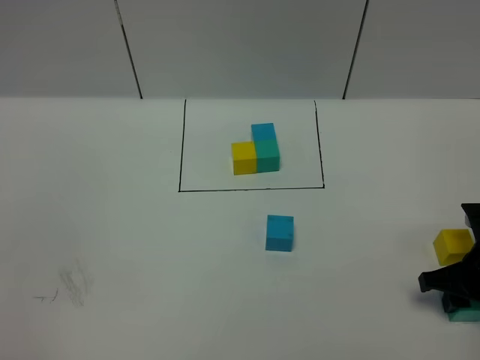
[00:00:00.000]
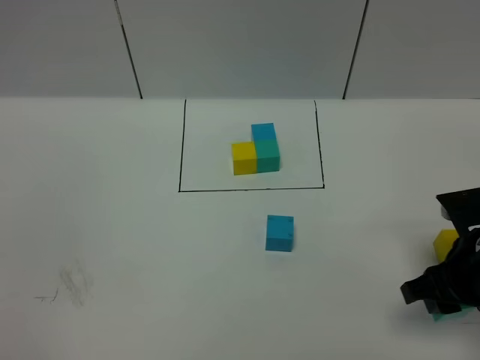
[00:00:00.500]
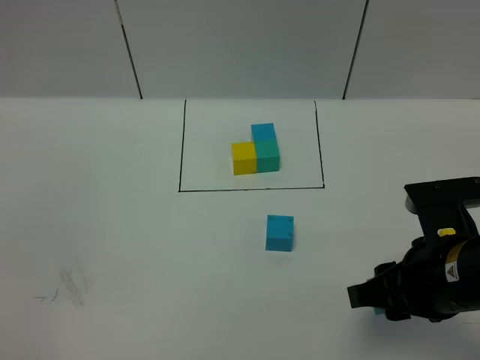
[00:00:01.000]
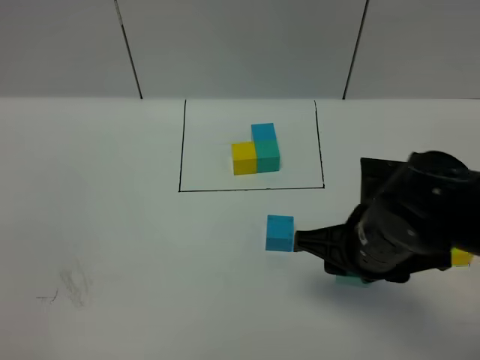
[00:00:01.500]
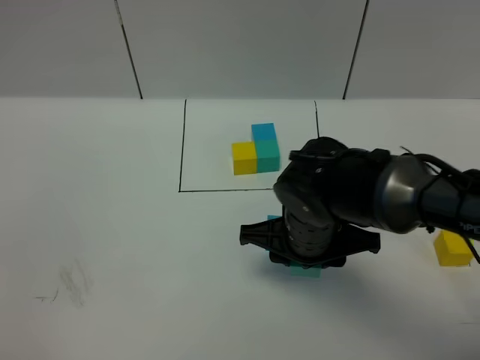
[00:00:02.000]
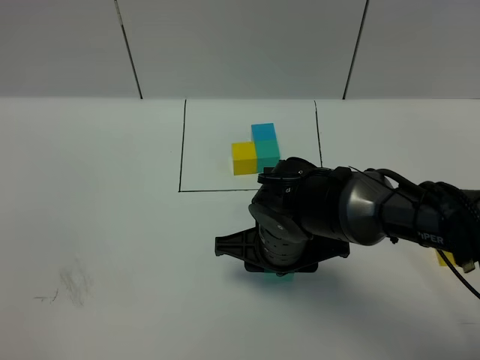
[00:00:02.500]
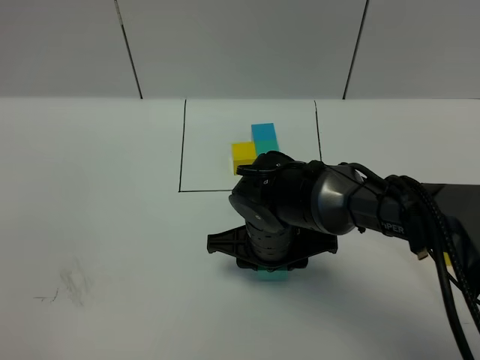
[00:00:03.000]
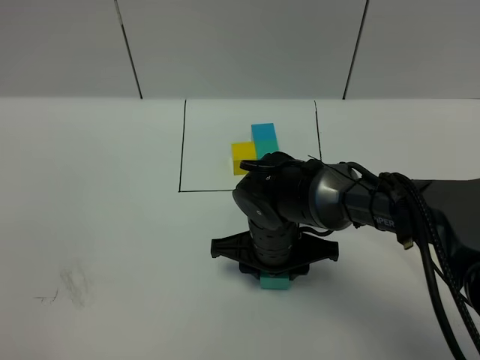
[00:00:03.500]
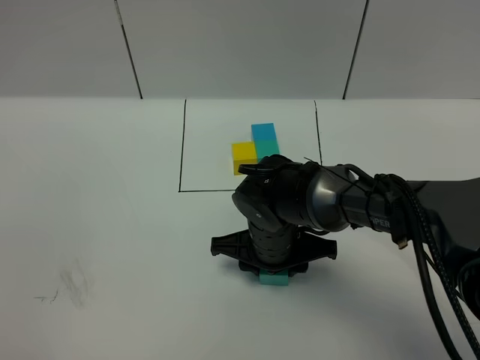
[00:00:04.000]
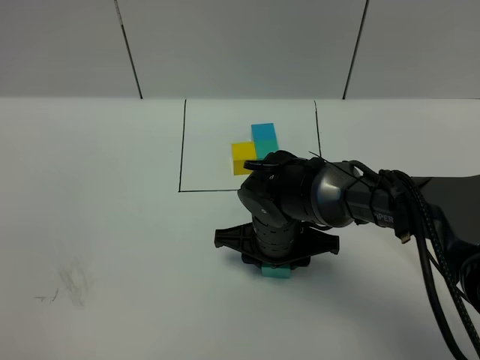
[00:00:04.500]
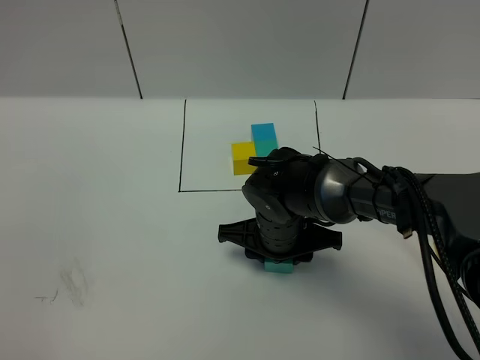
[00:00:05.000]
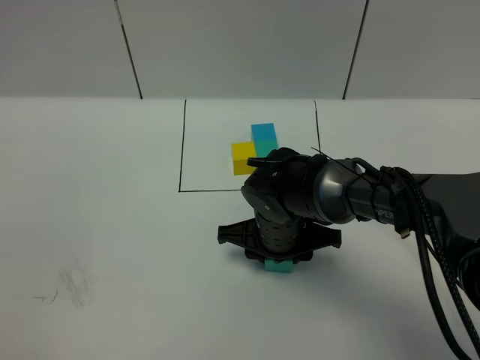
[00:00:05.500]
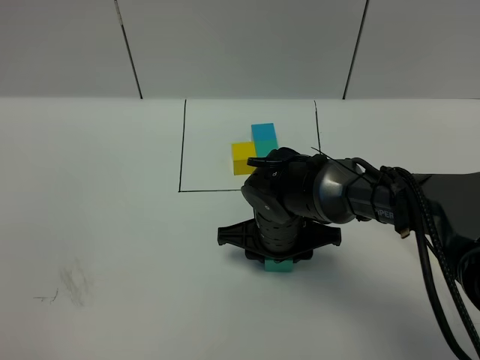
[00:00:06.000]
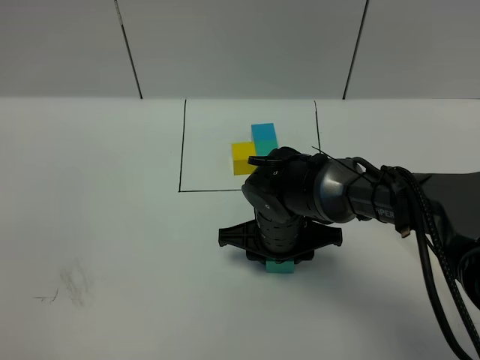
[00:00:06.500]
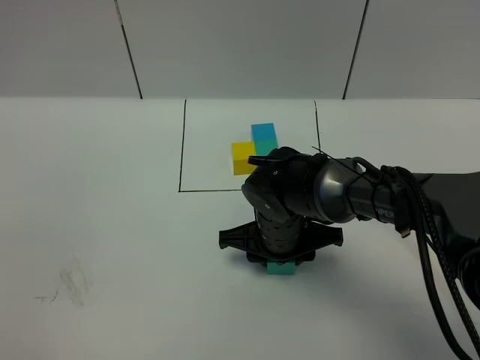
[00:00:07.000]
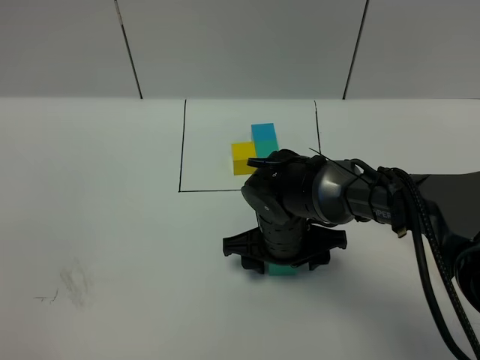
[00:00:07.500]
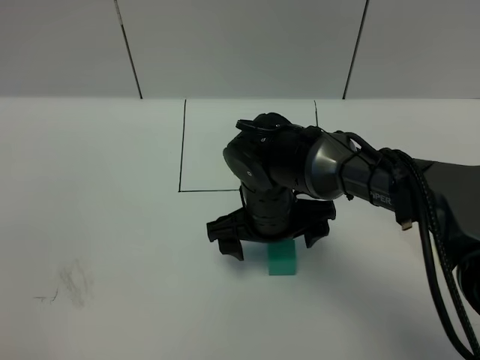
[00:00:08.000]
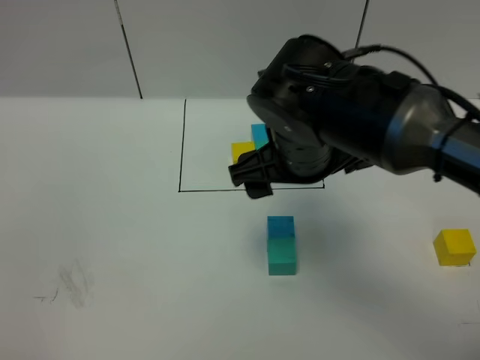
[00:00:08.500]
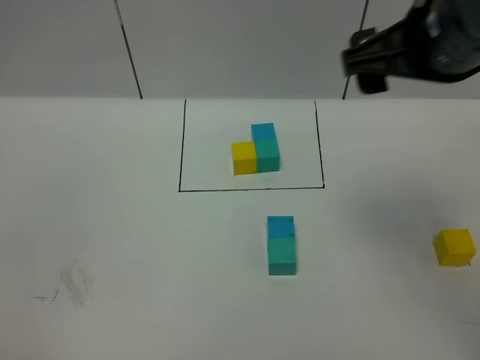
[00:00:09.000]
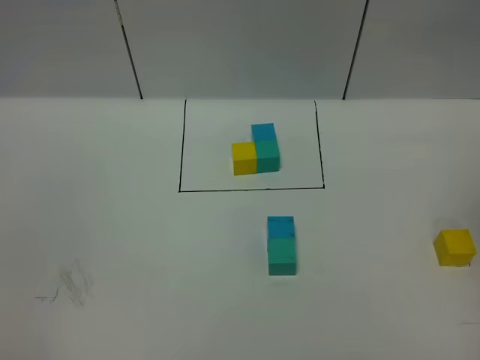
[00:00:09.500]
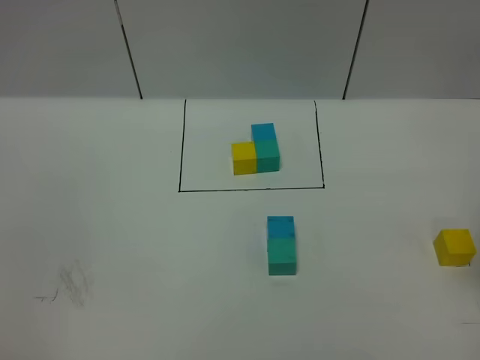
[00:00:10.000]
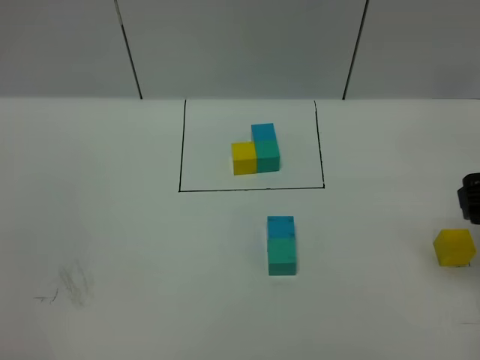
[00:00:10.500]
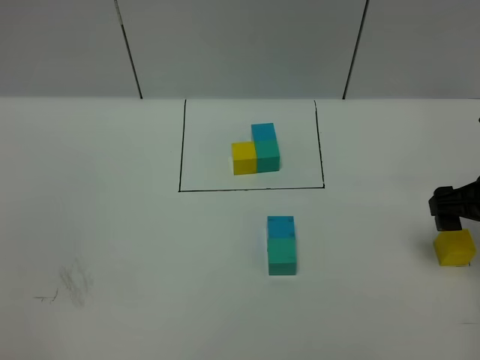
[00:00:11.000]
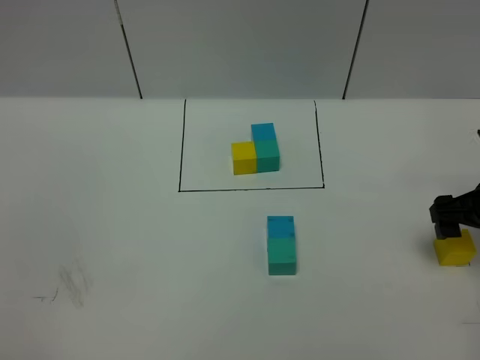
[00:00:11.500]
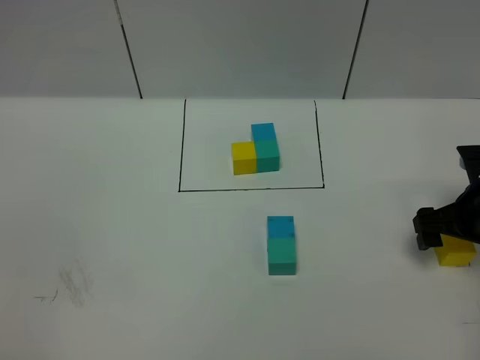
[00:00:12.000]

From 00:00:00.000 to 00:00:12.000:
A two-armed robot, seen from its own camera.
Task of the whole recording: According to the building block template in front, assemble the scattered blocks together.
Step, from 00:00:00.000 to 00:00:08.000: Put the green cube in the front of the blue cube.
From 00:00:00.000 to 00:00:02.000: The right gripper travels to the left by about 25 cm.
From 00:00:02.000 to 00:00:04.000: The right gripper heads downward, covering about 5 cm.
From 00:00:04.000 to 00:00:06.000: The grippers stay close to where they were, moving slightly.
From 00:00:06.000 to 00:00:08.000: The right gripper opens up.
From 00:00:08.000 to 00:00:10.000: The right gripper moves to the right and upward, roughly 35 cm.
From 00:00:10.000 to 00:00:12.000: The right gripper shifts about 20 cm downward and forward.

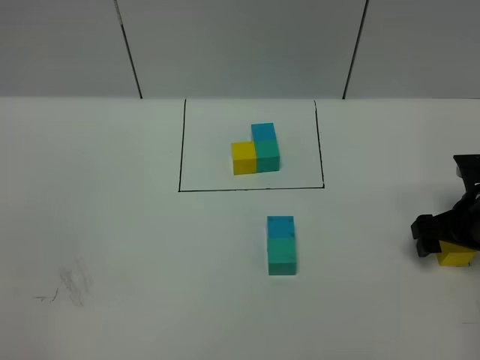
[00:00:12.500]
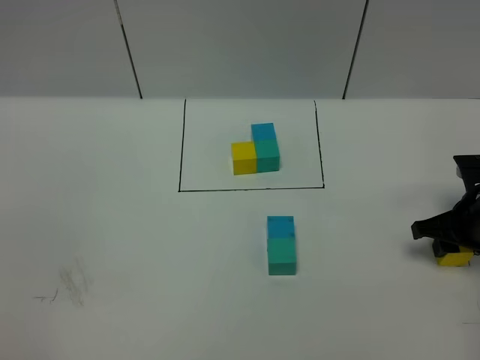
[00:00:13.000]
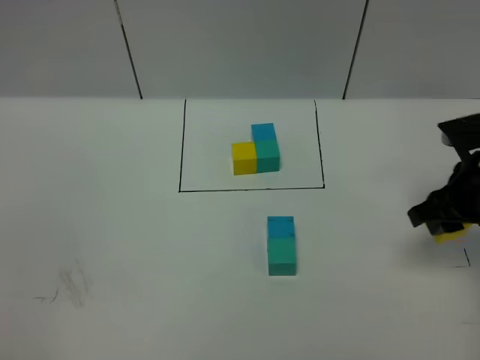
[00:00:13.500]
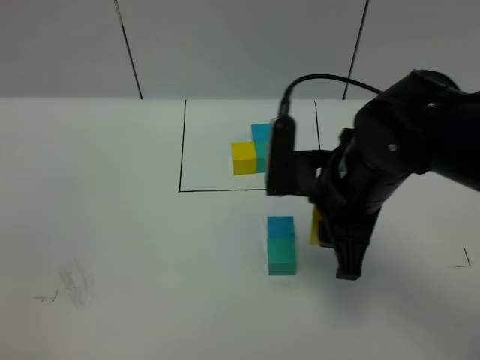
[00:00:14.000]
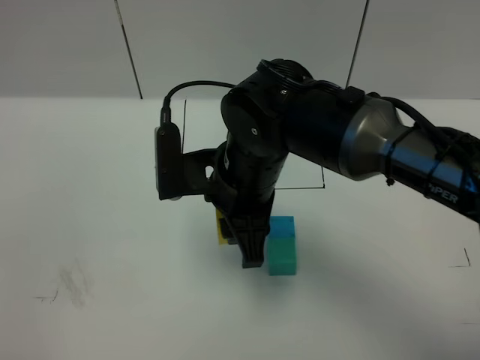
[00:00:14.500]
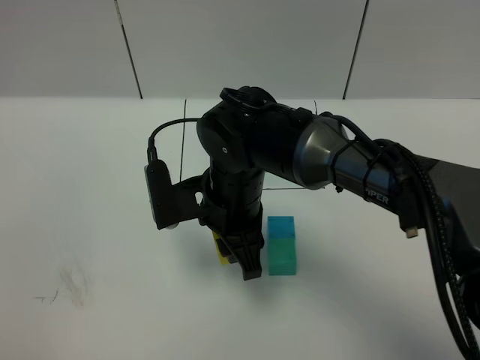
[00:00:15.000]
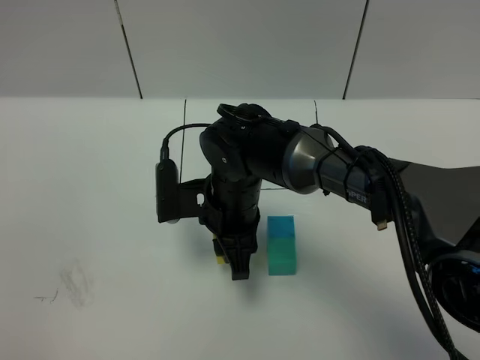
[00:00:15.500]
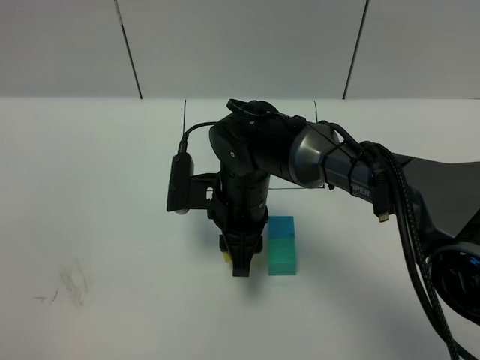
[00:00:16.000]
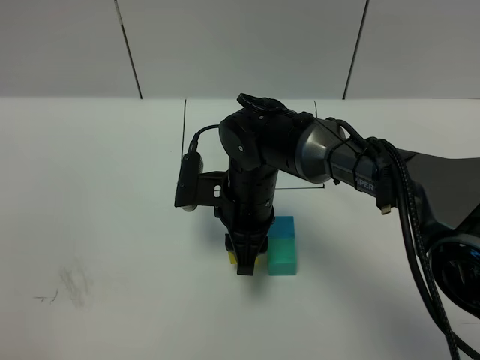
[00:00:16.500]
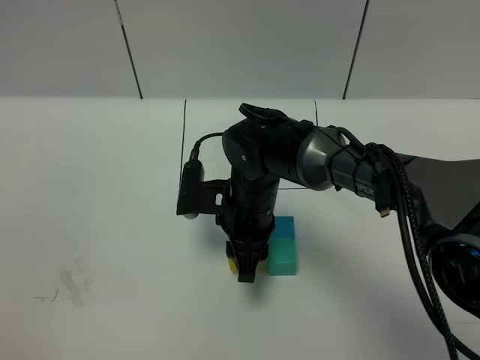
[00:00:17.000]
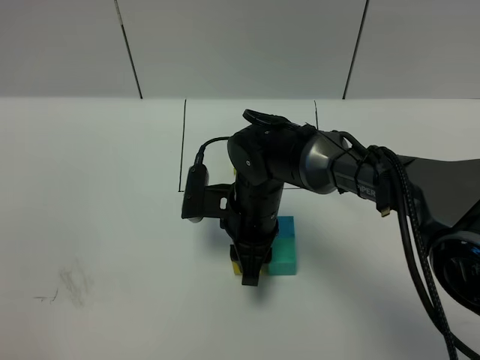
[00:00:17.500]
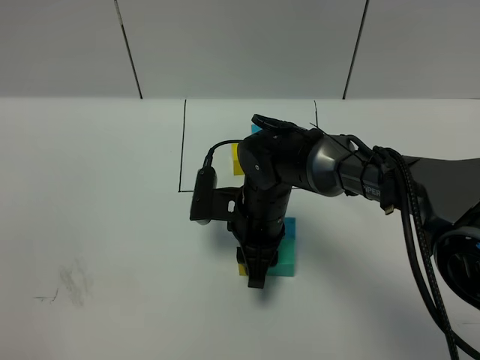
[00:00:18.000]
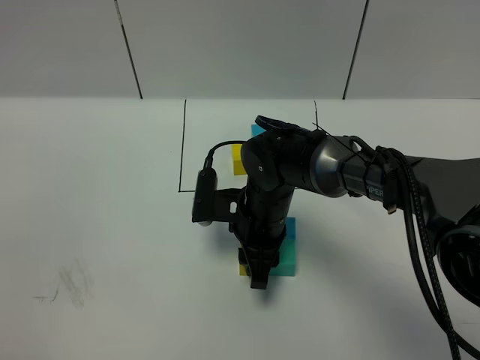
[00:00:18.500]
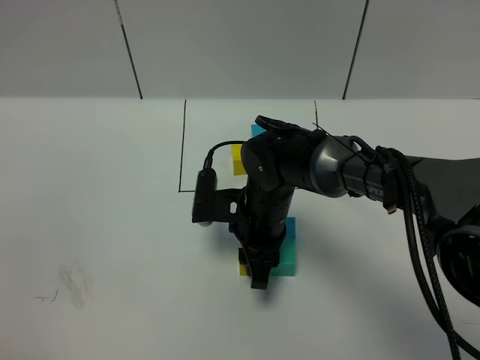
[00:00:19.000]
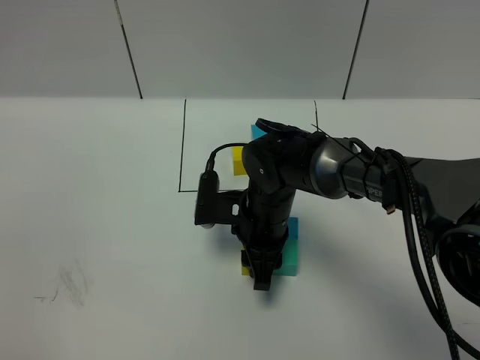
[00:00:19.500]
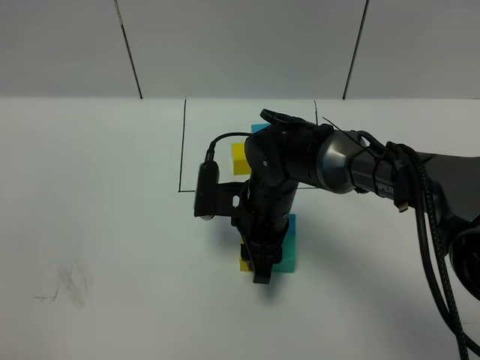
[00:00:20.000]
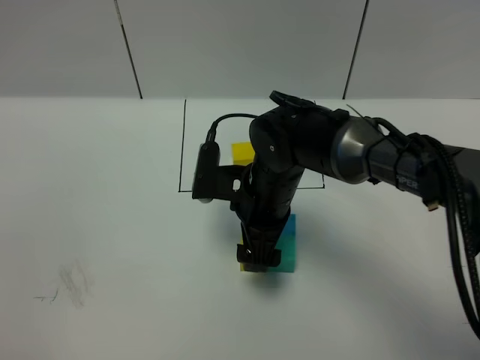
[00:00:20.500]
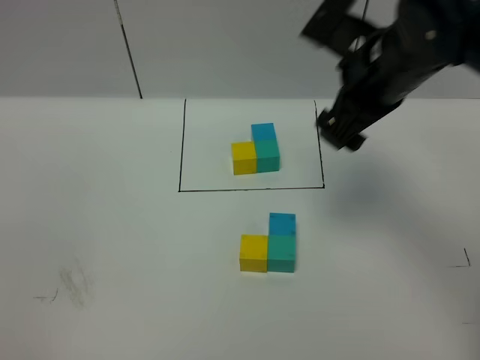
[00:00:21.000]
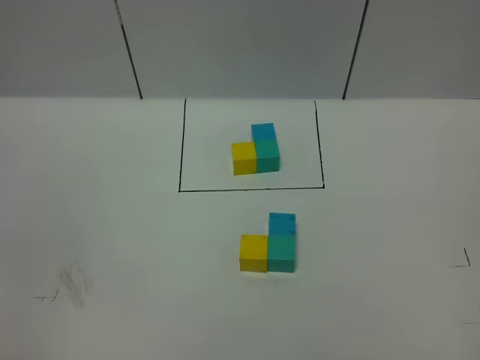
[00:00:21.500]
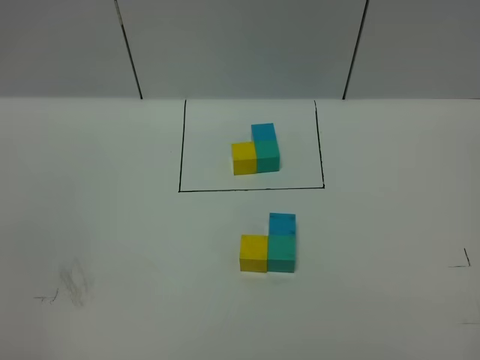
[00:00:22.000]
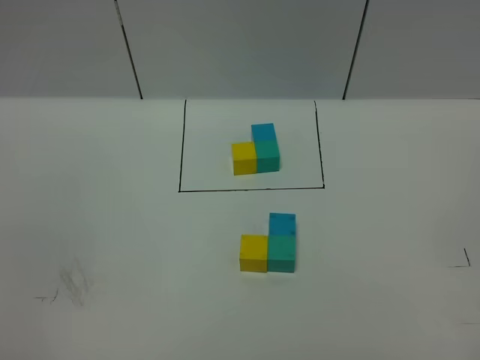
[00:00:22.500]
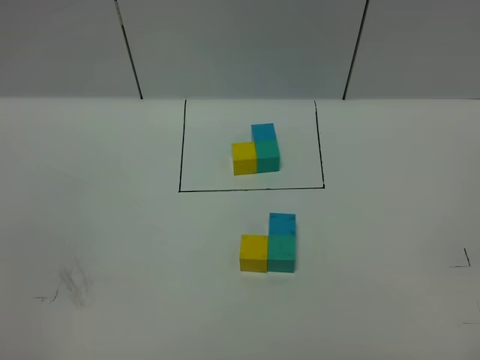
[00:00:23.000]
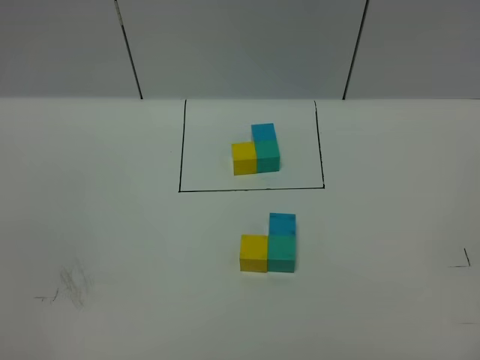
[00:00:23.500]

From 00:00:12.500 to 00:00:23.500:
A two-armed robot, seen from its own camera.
Task of the whole recording: According to the building block template in front, assemble the scattered blocks together.
From 00:00:12.500 to 00:00:14.500: The right gripper heads to the left, covering some 30 cm, and closes up.
From 00:00:14.500 to 00:00:16.000: The right gripper is displaced downward by roughly 10 cm.
From 00:00:16.000 to 00:00:18.000: The grippers stay close to where they were, moving slightly.
From 00:00:18.000 to 00:00:20.000: The two grippers keep their place.
From 00:00:20.000 to 00:00:21.500: The right gripper moves to the right, upward and backward, some 50 cm, and opens.

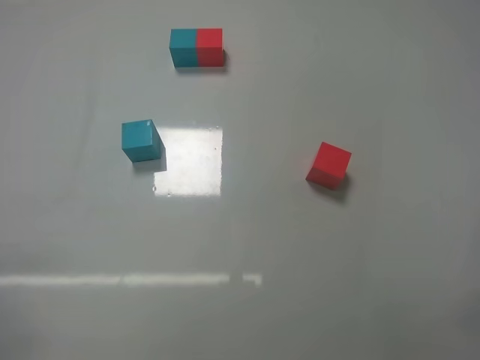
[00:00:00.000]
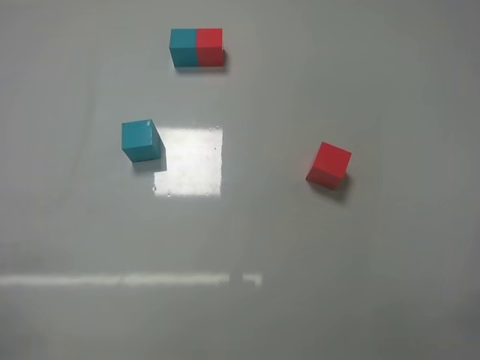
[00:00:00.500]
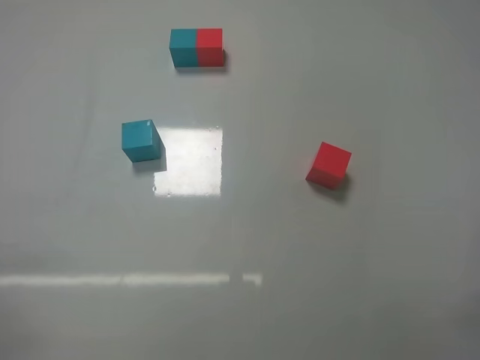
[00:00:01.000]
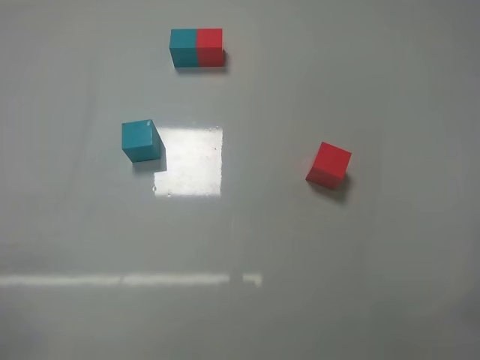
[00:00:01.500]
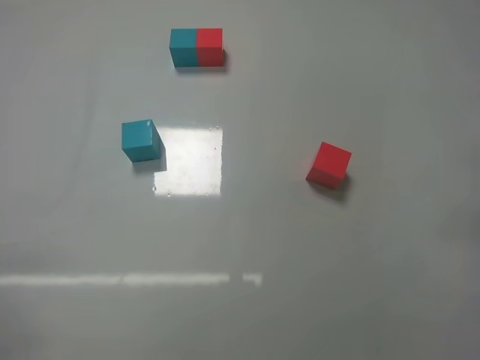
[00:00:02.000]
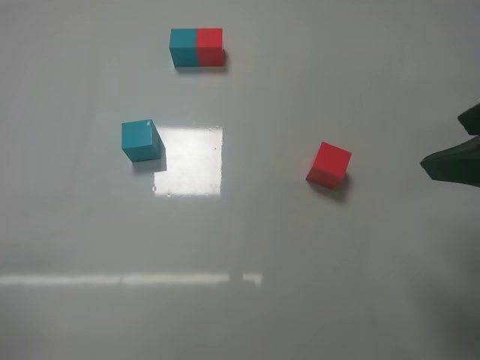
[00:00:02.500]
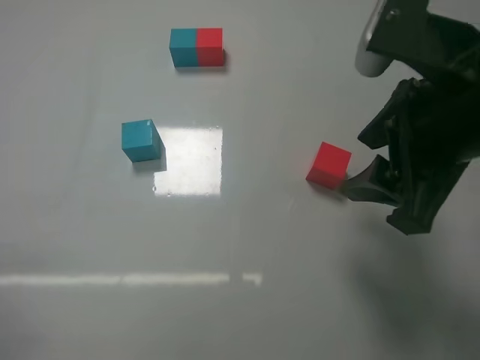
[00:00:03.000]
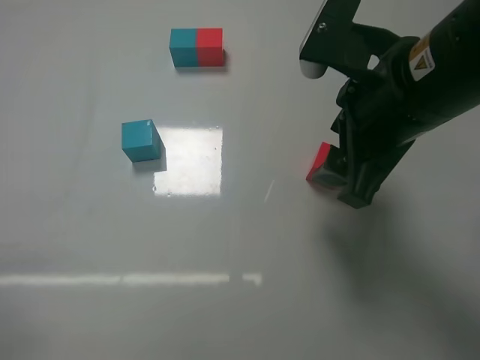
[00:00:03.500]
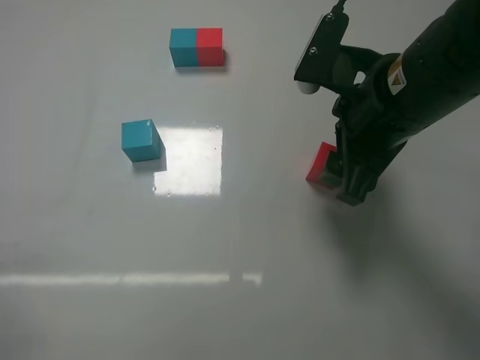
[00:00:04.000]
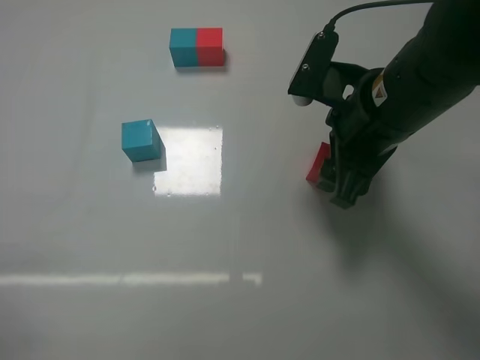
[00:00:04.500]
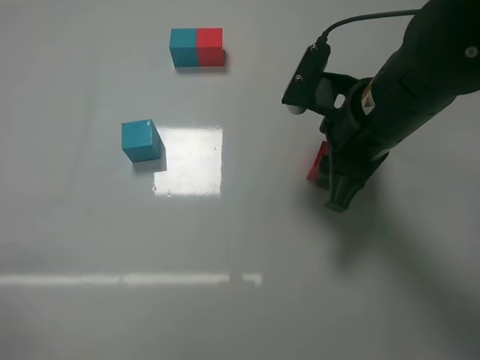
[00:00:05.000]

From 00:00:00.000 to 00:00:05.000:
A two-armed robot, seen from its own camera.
Task of the whole recording: According to the building block template in front, assemble the scattered blocks together.
From 00:00:00.000 to 00:00:02.500: The right gripper goes approximately 20 cm forward, upward and to the left.
From 00:00:02.500 to 00:00:05.000: The right gripper goes some 15 cm forward, to the left and downward, and closes its fingers.
